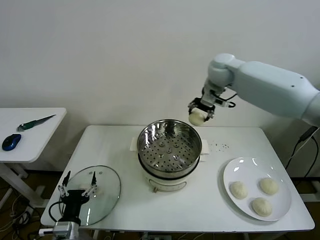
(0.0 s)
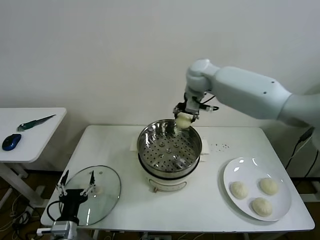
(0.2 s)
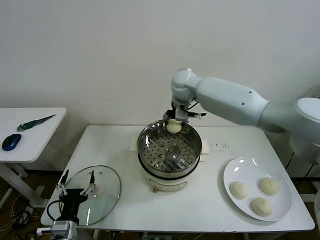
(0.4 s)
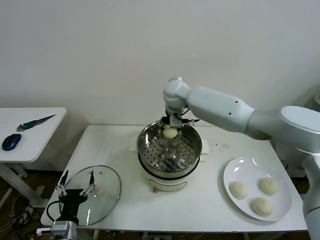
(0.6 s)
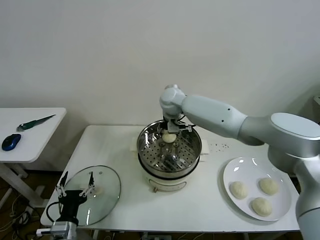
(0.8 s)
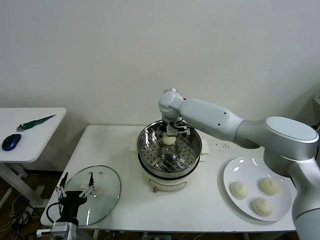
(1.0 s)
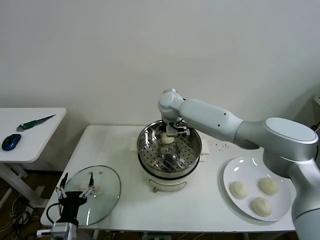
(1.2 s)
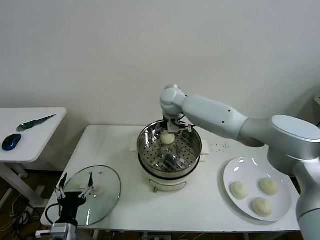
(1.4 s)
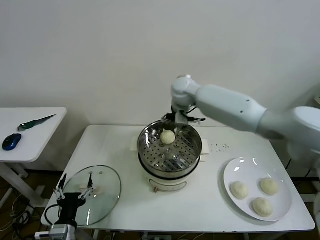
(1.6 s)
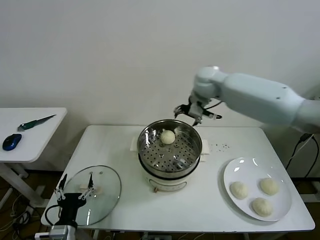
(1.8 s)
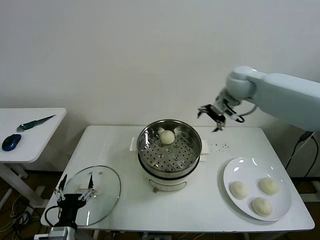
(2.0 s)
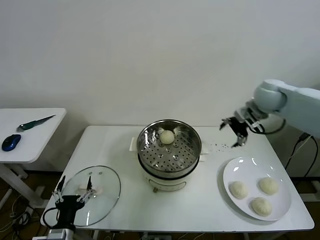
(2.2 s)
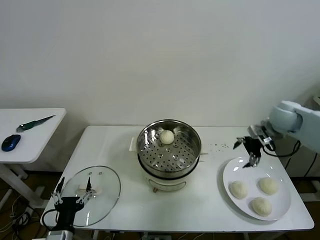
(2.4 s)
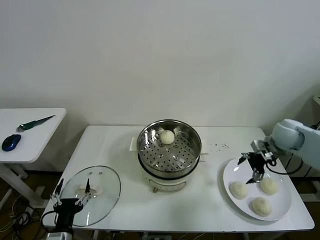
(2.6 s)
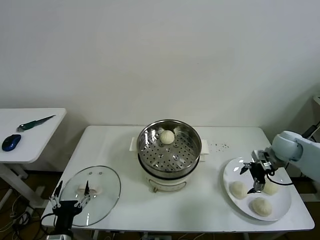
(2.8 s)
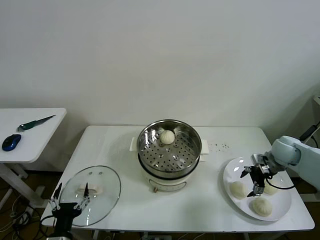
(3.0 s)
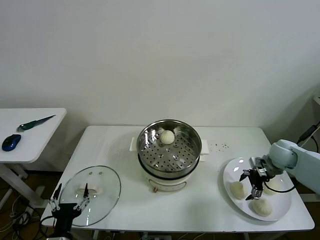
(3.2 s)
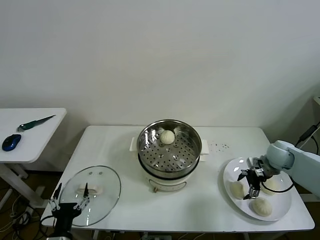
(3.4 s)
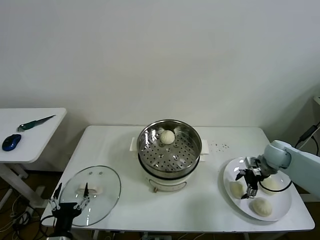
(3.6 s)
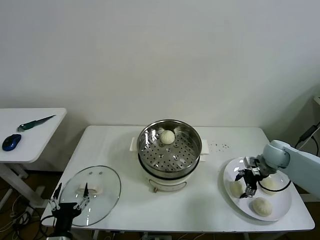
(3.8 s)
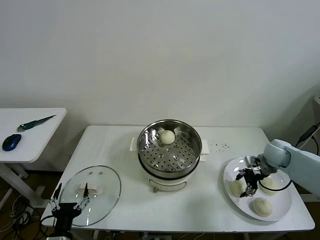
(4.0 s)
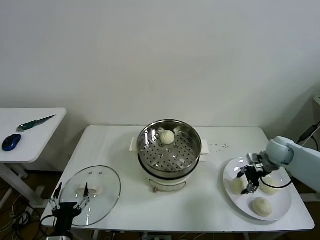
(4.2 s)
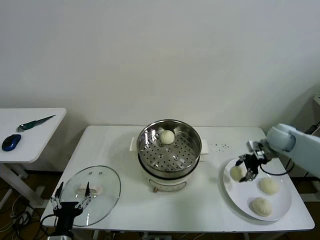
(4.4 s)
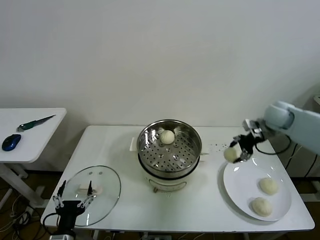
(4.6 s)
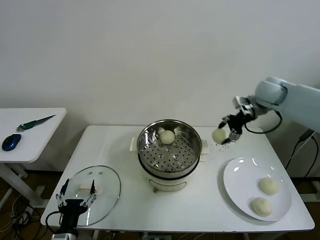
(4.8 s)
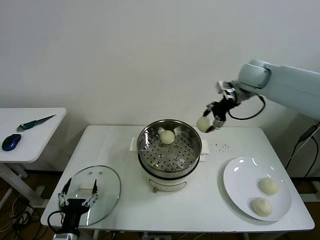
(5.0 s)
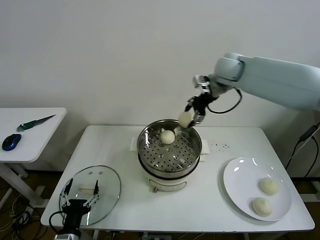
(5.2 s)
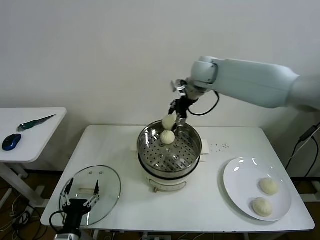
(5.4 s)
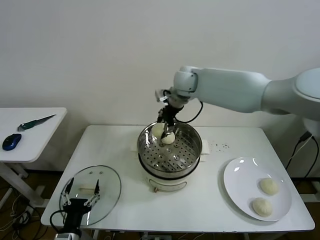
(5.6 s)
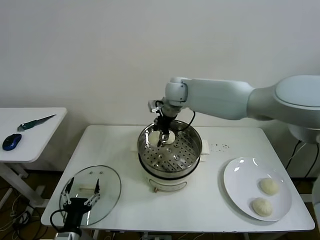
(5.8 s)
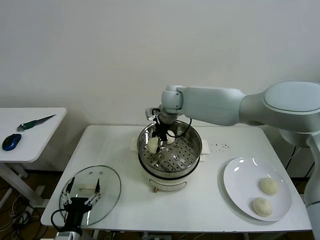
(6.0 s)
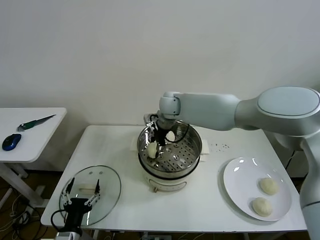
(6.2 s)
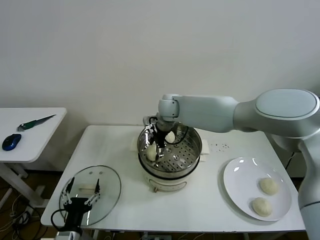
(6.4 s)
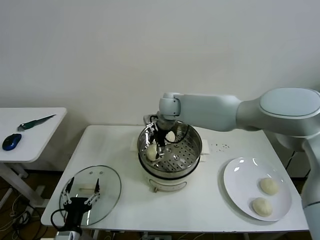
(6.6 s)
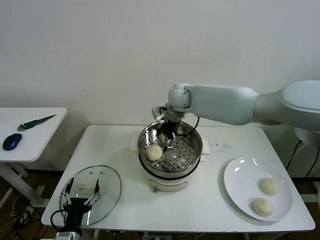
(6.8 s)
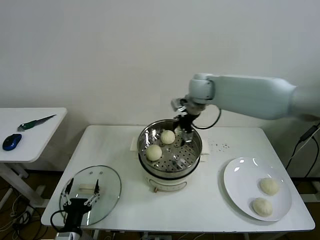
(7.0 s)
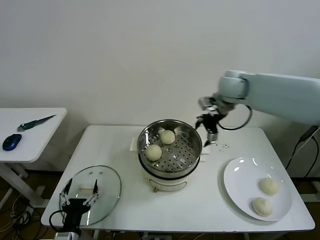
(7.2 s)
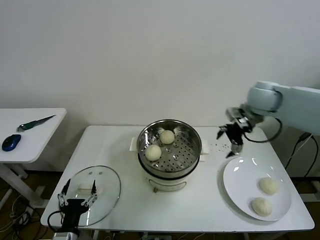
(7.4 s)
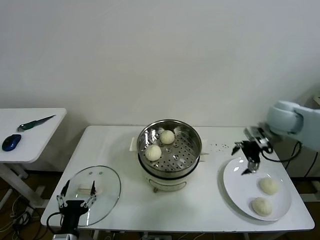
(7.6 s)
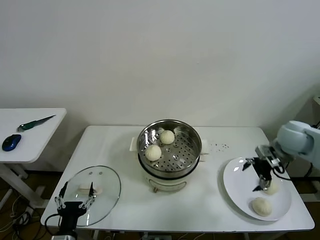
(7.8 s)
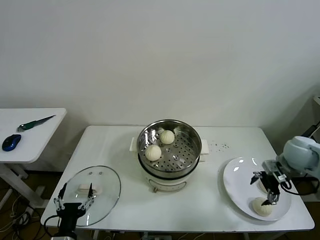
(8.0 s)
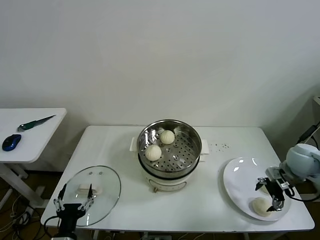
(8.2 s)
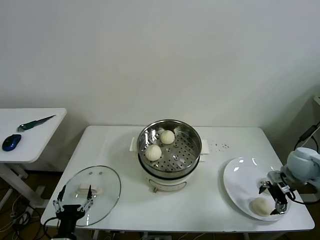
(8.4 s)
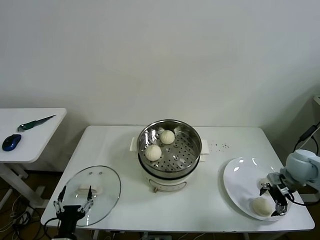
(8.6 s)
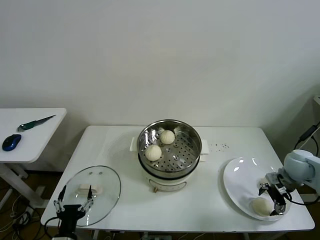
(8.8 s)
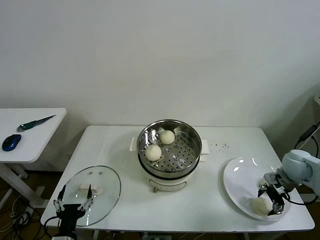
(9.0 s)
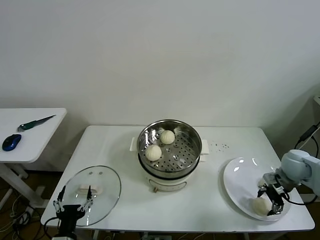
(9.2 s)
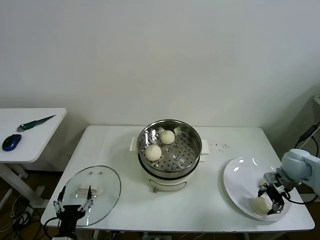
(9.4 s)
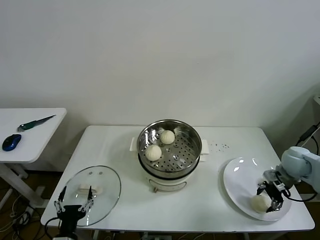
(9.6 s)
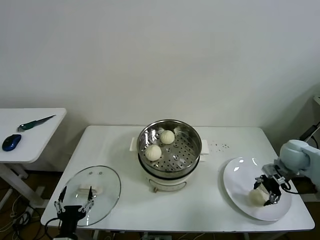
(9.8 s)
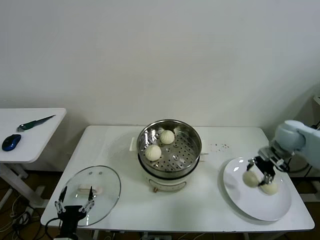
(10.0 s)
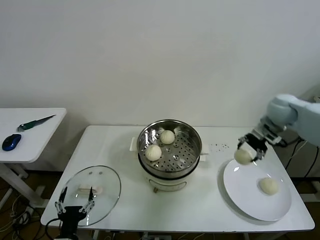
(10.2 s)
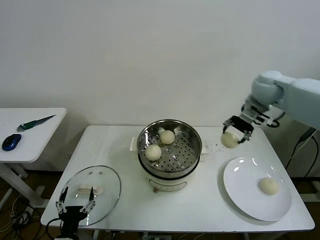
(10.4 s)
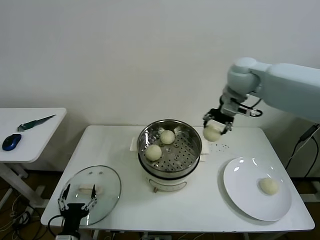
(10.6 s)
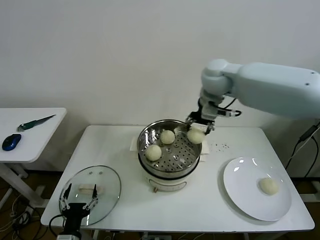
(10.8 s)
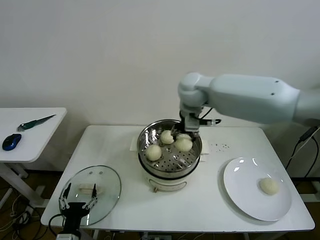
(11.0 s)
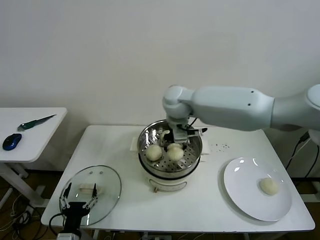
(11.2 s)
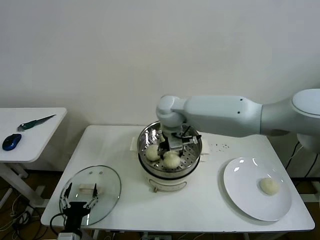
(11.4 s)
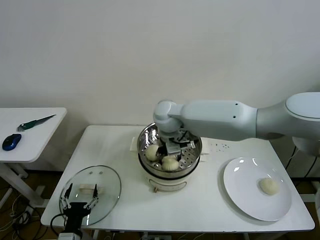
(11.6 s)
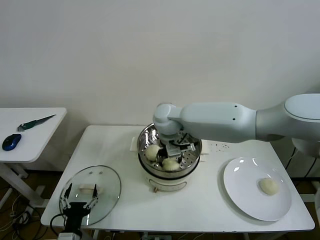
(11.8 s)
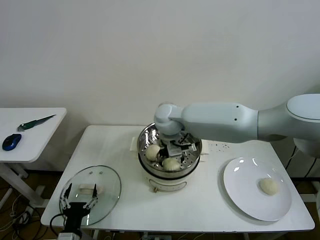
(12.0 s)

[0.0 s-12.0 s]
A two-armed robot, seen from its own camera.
Task of the whole recording: take steamed baozi put them in steamer then cover it.
Step, 0.0 to 1.2 s: Place the baozi on the steamer with right gripper.
Step, 1.4 to 3.8 s: Grasp the baozi in the plate with right gripper.
Step, 4.0 to 6.4 s: Place the baozi on the steamer with right gripper.
Step, 6.6 to 9.0 s: Grasp the baozi in the plate with right gripper.
Step, 9.4 to 12.0 s: Place the baozi on the steamer with right gripper.
0.0 to 1.6 s: The right gripper goes downward and returns, roughly 10 cm each way, and opens its fingers.
1.6 to 3.0 s: The right gripper moves to the right, downward and backward, some 40 cm.
3.0 to 4.4 s: The right gripper travels upward and forward by roughly 10 cm, and closes its fingers.
4.4 to 6.0 s: The right gripper shifts some 40 cm to the left.
6.0 to 7.6 s: The right gripper moves to the right, approximately 35 cm, and opens its fingers.
7.6 to 9.0 s: The right gripper heads downward and to the right, covering some 15 cm, and closes up.
9.0 to 10.4 s: The right gripper is displaced upward, to the left and forward by some 30 cm.
10.4 to 12.0 s: The right gripper heads to the left, covering roughly 25 cm, and opens up.

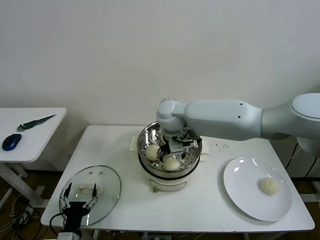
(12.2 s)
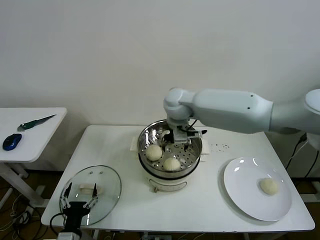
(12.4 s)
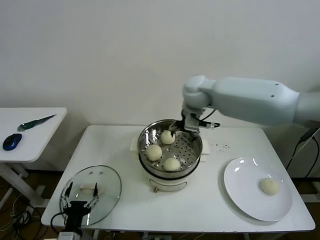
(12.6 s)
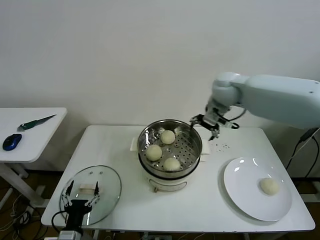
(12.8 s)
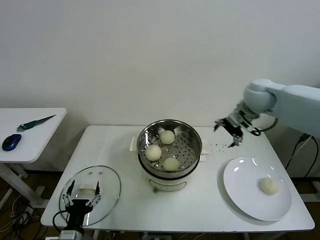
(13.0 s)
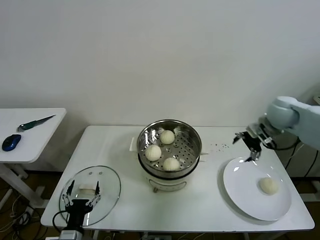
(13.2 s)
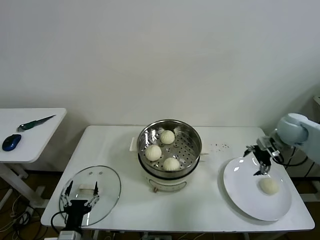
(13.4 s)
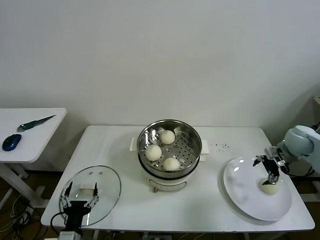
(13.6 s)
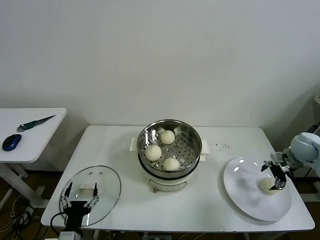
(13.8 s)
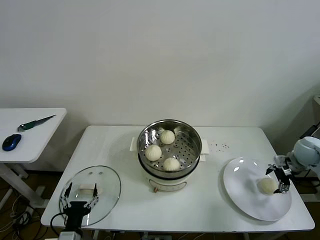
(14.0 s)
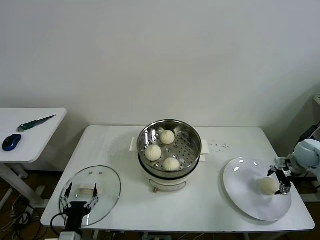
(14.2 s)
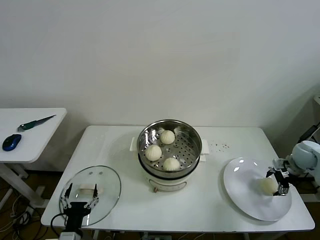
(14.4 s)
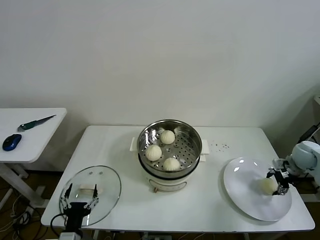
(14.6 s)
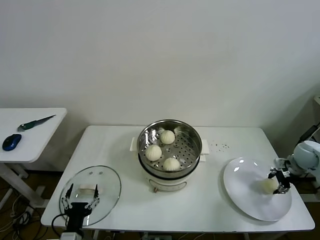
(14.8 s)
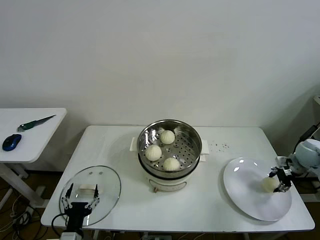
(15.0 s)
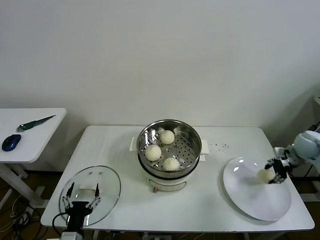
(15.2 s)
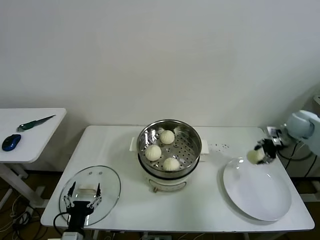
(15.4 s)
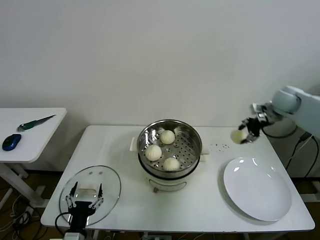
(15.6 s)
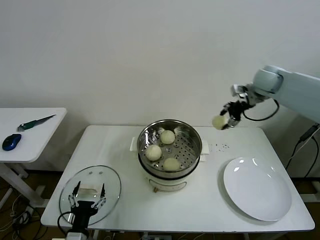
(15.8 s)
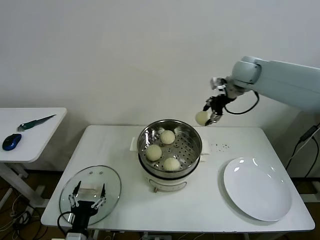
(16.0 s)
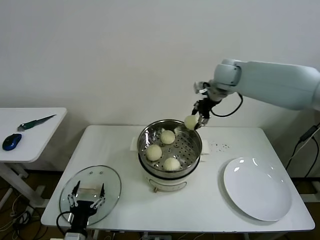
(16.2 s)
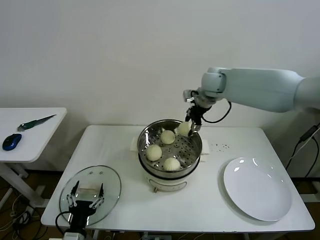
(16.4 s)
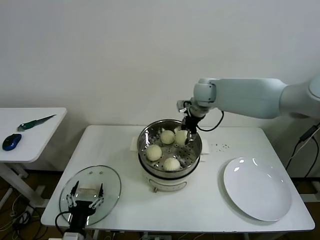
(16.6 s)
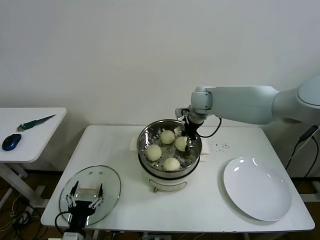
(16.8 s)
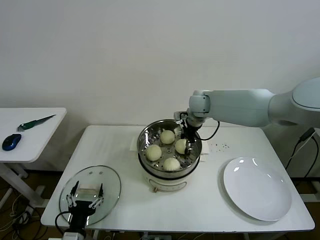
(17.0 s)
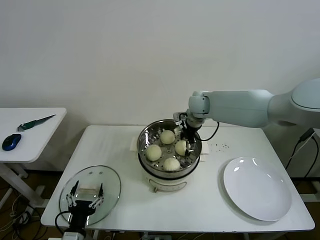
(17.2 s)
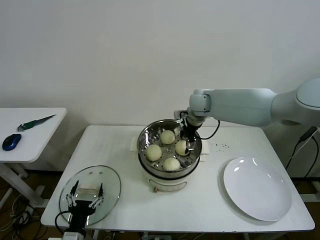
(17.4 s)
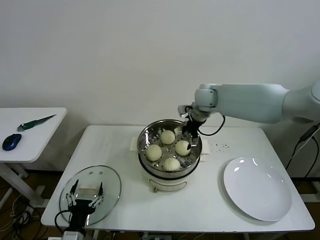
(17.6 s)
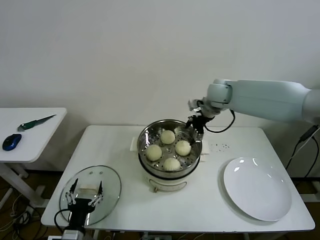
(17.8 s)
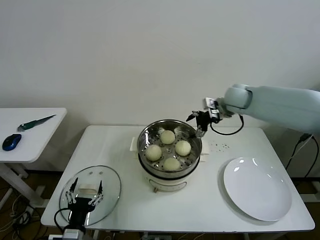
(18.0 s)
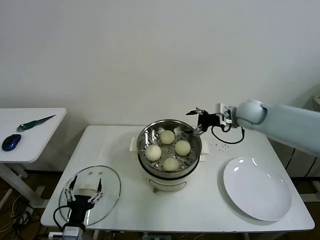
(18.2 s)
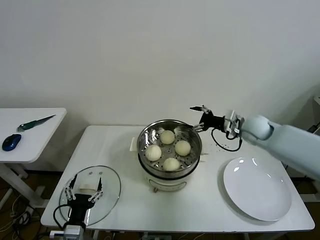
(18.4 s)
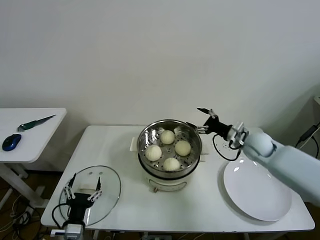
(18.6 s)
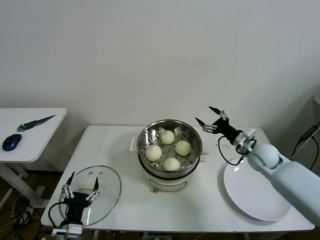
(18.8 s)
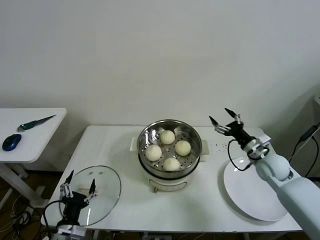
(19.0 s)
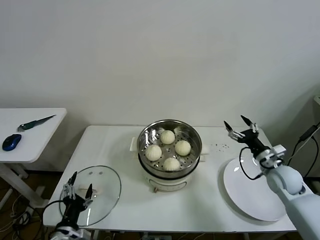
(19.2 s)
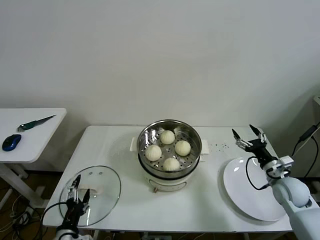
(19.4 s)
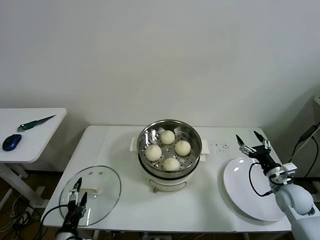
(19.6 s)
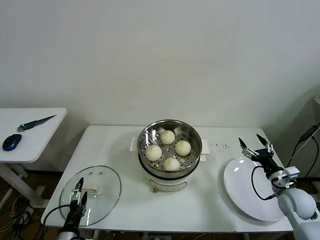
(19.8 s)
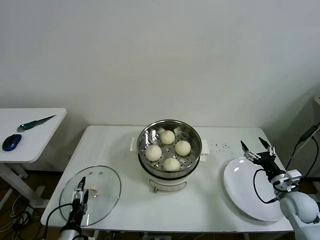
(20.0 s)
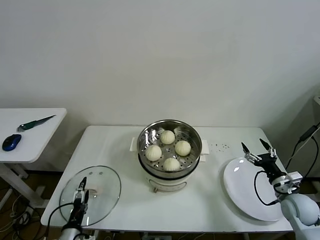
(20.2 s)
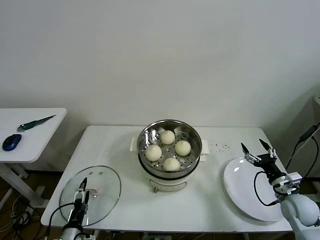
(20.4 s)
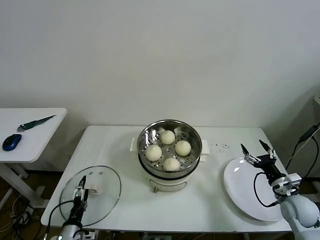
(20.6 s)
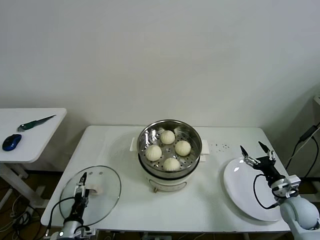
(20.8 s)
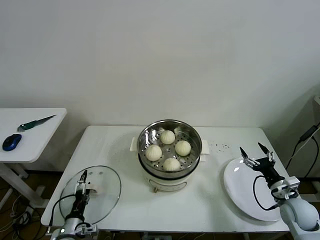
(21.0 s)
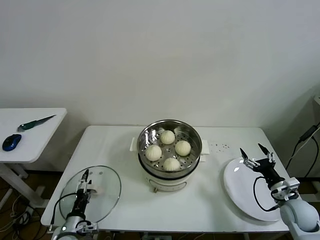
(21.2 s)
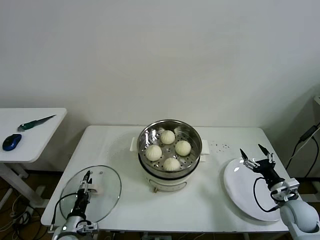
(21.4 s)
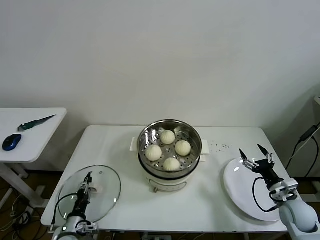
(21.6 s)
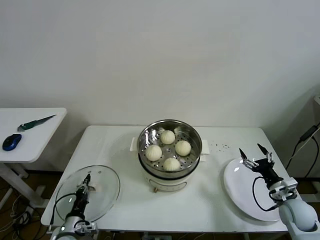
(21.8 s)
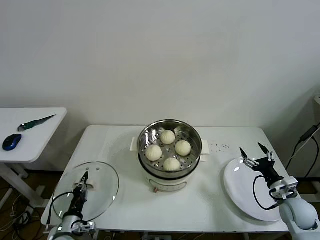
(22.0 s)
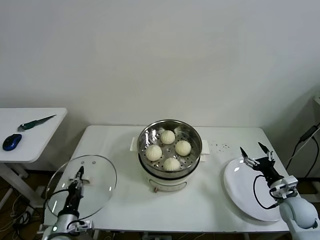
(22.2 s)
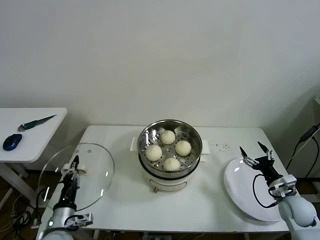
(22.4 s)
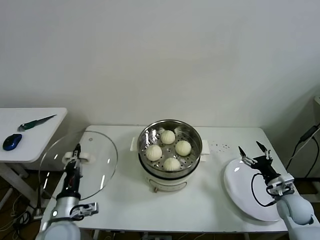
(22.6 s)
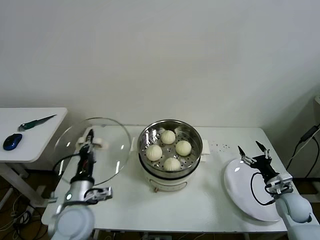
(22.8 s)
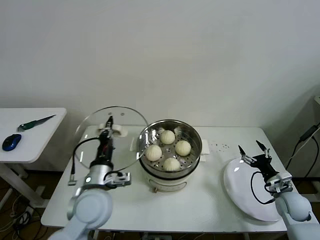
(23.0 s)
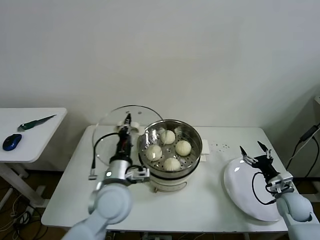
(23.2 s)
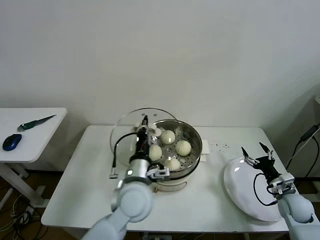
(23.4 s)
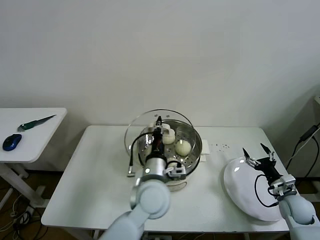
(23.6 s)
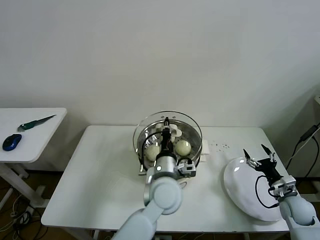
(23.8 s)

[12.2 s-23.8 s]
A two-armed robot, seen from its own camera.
Task of the whole recording: take steamed baozi put them in steamer then cover it.
Step, 12.2 to 14.8 s: Grasp the baozi in the plate with right gripper.
Step, 15.0 to 17.4 s: Place the baozi on the steamer with right gripper.
Step, 17.6 to 21.8 s: Grasp the pot lid with left gripper.
12.2 to 13.6 s: The right gripper is displaced to the right by some 40 cm.
13.6 to 15.0 s: The right gripper shifts by approximately 5 cm, and closes.
15.0 to 16.6 s: The right gripper shifts roughly 40 cm to the left and upward.
16.6 to 18.0 s: The right gripper travels to the right by some 10 cm, and opens.
18.0 to 19.4 s: The right gripper travels downward, backward and to the right by approximately 35 cm.
19.4 to 21.0 s: The left gripper is displaced downward and forward by about 10 cm. Meanwhile the right gripper goes approximately 5 cm backward.
21.0 to 22.4 s: The left gripper moves upward, approximately 10 cm, and closes its fingers.
22.4 to 23.8 s: The left gripper goes some 30 cm to the right.
